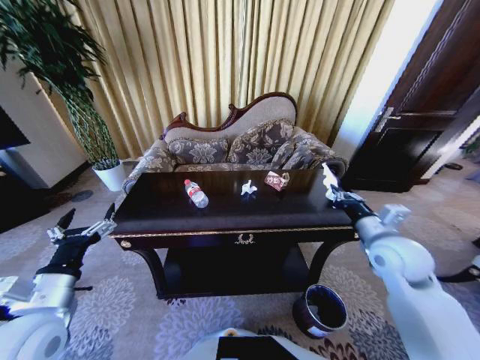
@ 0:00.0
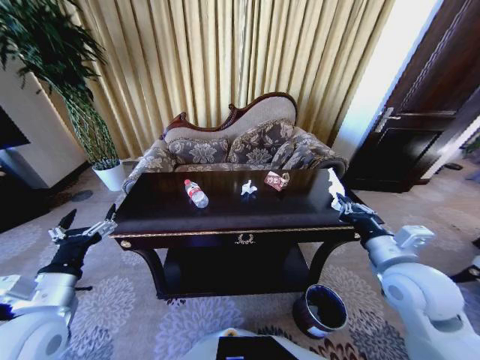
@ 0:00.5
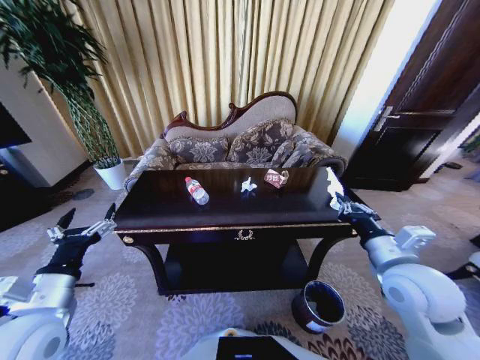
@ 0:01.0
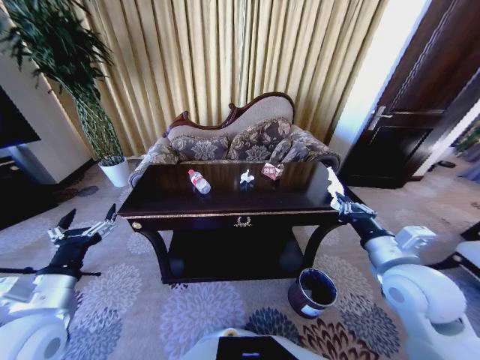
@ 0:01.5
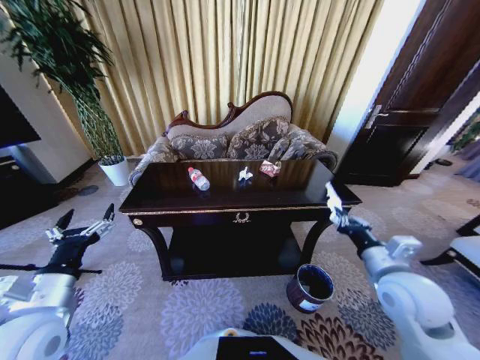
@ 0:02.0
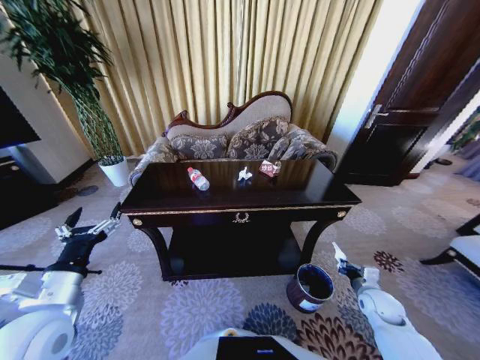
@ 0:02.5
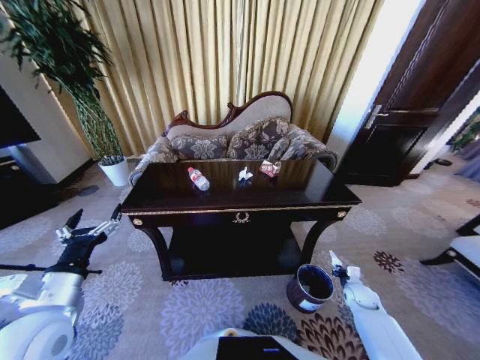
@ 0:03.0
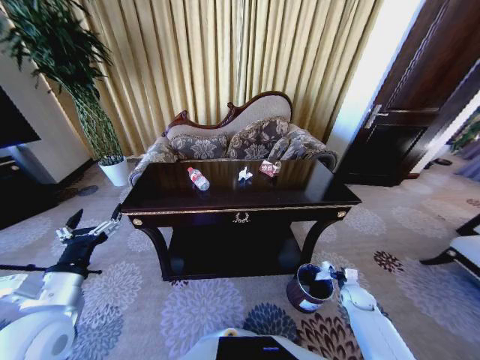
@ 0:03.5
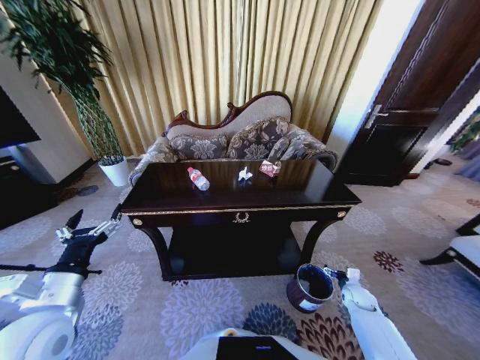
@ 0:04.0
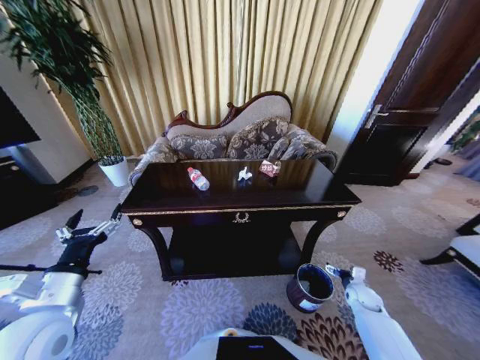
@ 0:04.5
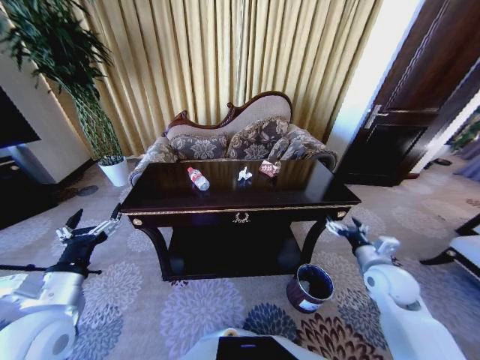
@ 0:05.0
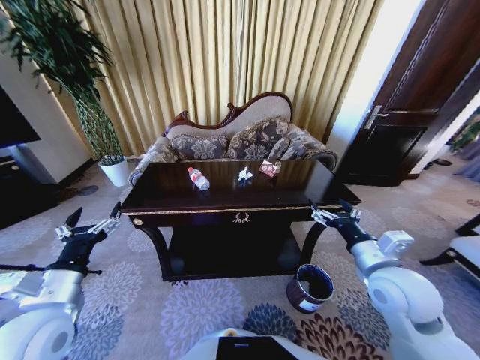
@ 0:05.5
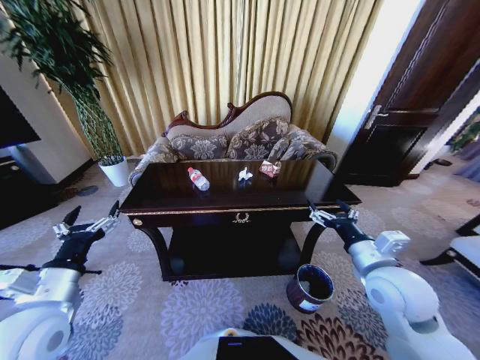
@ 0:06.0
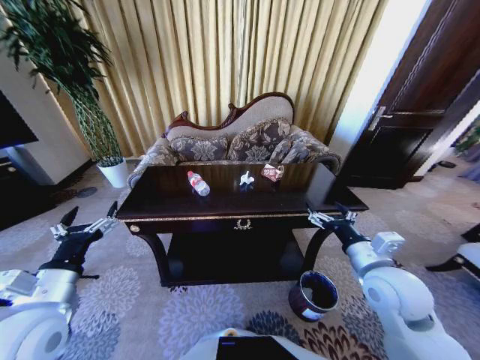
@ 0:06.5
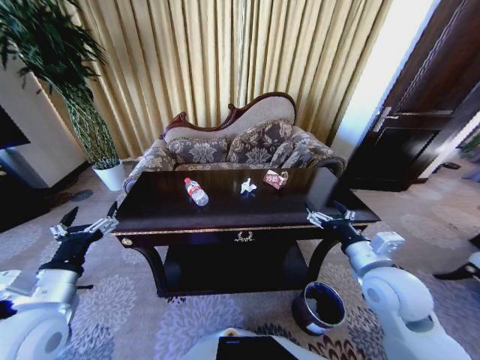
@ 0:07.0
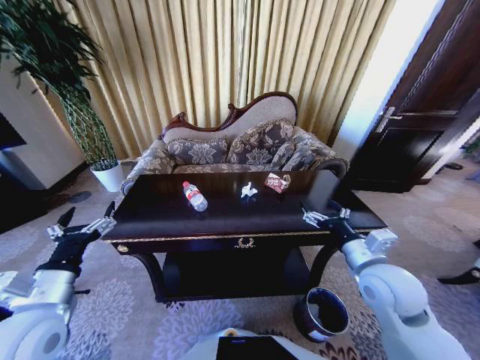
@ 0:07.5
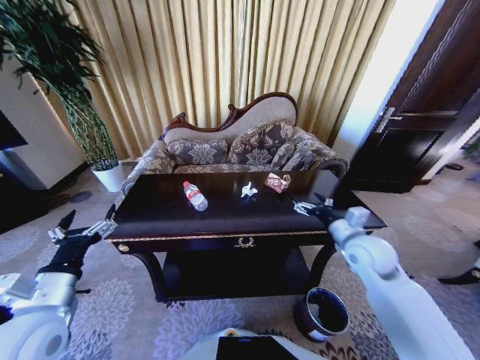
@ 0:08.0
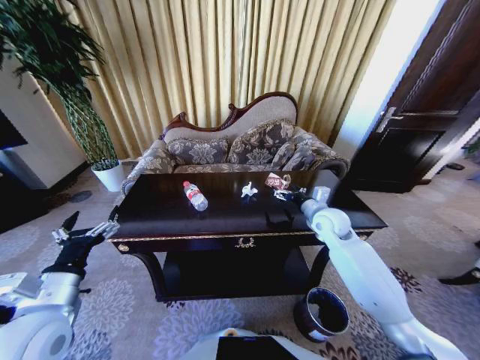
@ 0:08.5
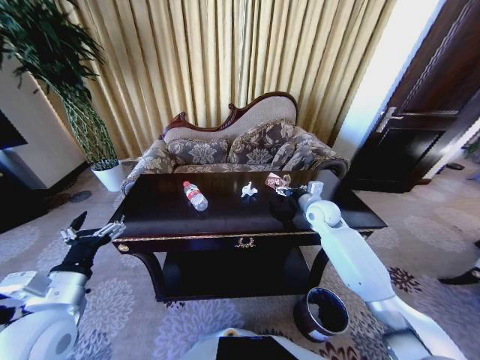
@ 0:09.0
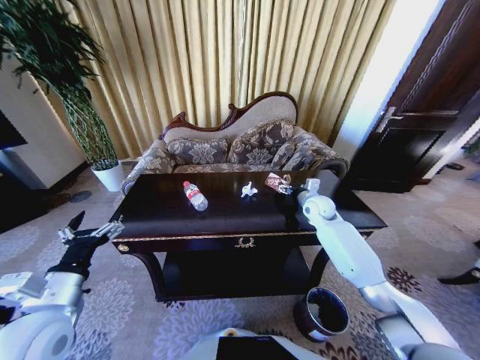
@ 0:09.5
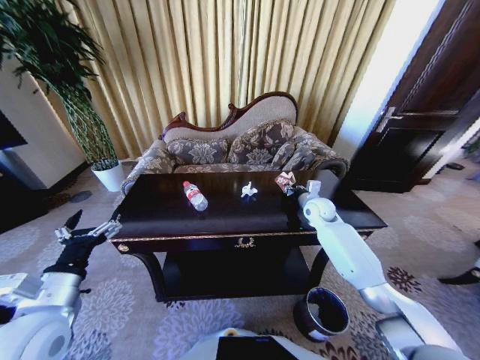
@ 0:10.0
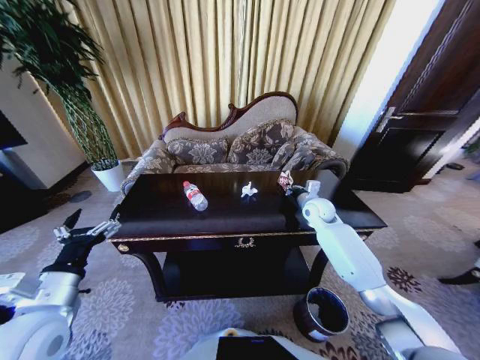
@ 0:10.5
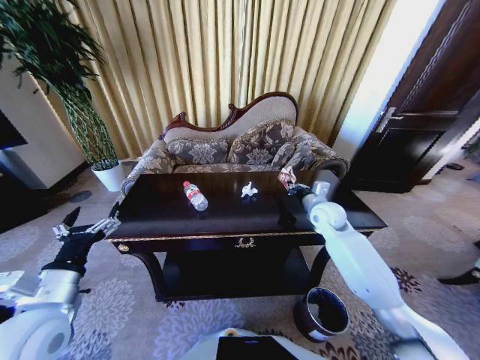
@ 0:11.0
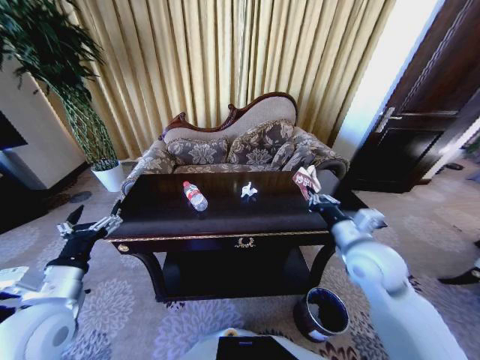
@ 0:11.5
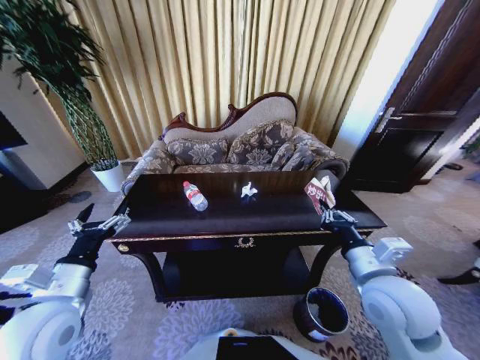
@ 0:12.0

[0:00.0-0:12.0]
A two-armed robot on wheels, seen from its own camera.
Task of the whole recording: Move to the front of the table and place the trash on the table into the trash bin.
0:00.0 to 0:02.0: The right gripper shifts roughly 5 cm backward.
0:02.0 to 0:04.0: The right gripper travels downward by some 30 cm, and opens its fingers.
0:04.0 to 0:06.0: The right gripper is displaced upward and to the left by roughly 35 cm.
0:06.0 to 0:08.0: The right gripper moves forward, approximately 10 cm.
0:08.0 to 0:10.0: The right gripper goes approximately 20 cm forward, and closes up.
0:10.0 to 0:12.0: The right gripper moves backward, about 30 cm, and closes.

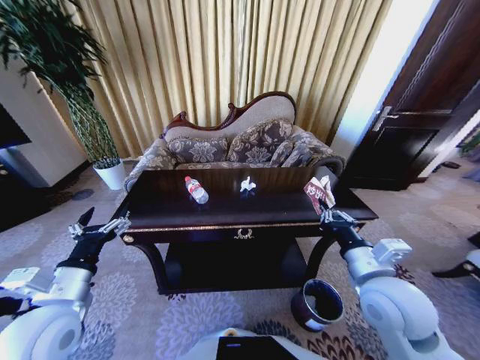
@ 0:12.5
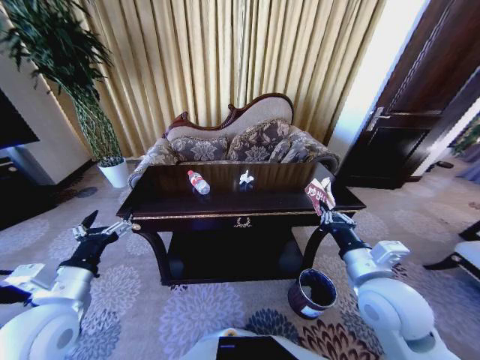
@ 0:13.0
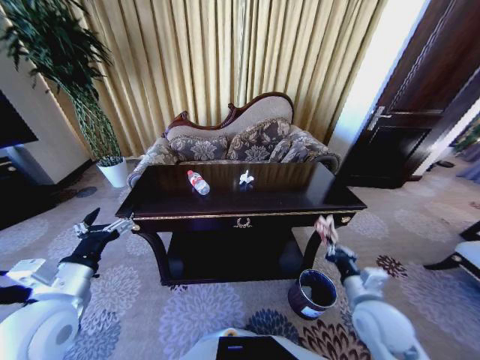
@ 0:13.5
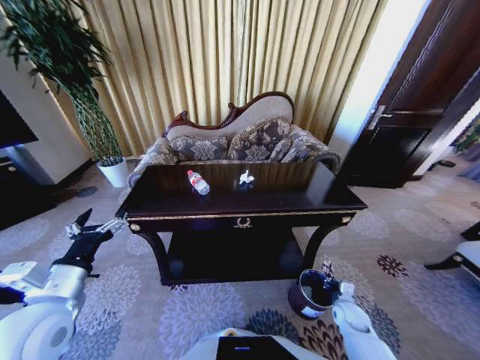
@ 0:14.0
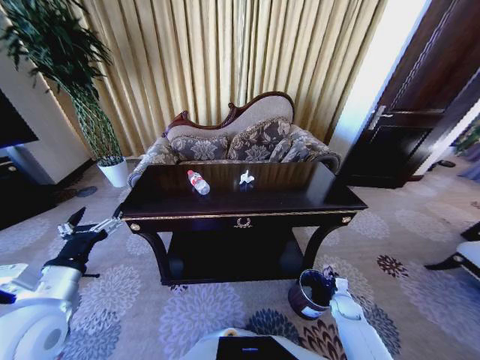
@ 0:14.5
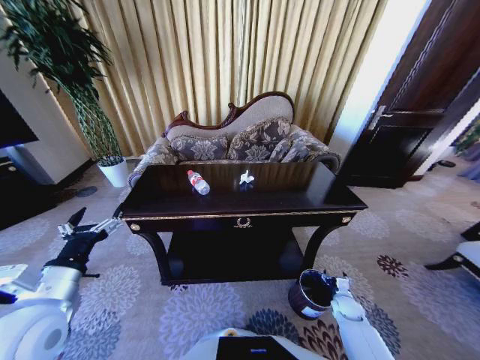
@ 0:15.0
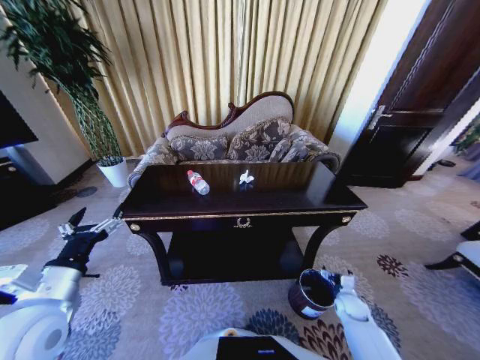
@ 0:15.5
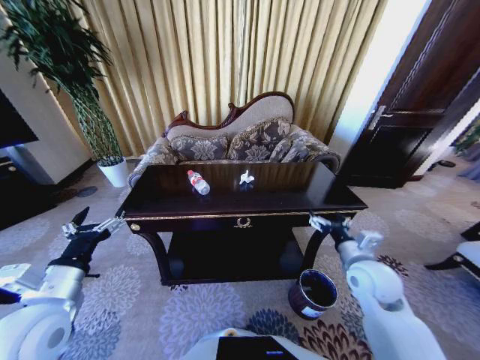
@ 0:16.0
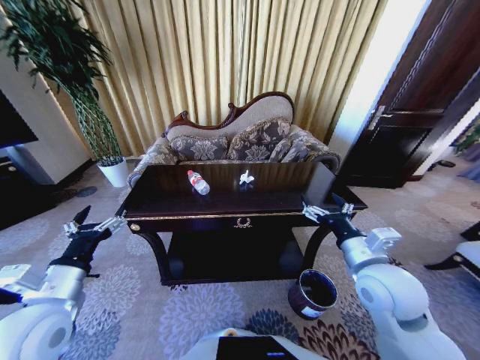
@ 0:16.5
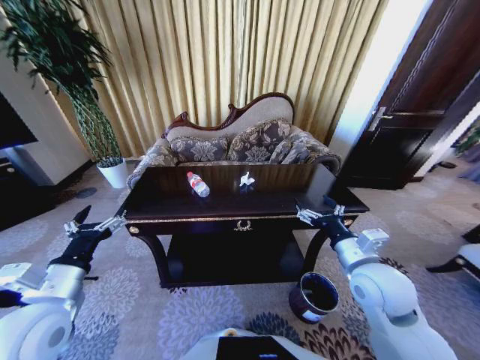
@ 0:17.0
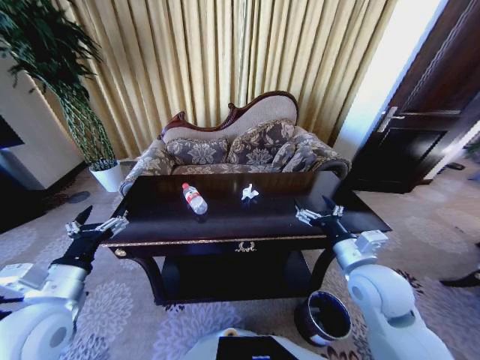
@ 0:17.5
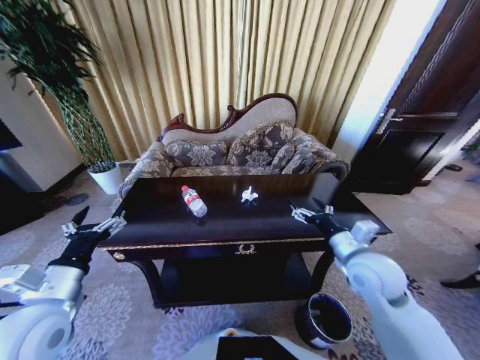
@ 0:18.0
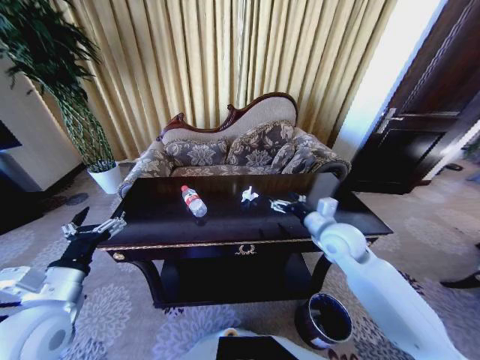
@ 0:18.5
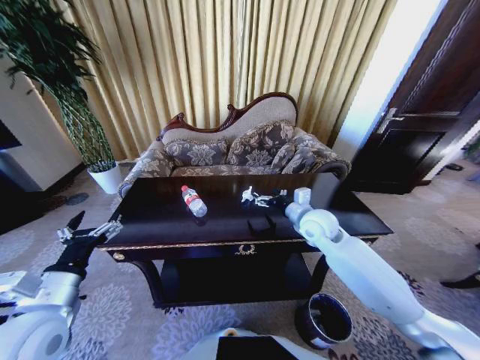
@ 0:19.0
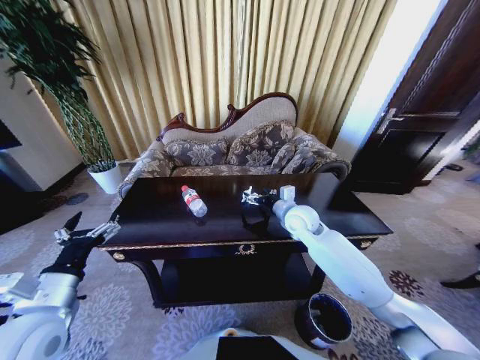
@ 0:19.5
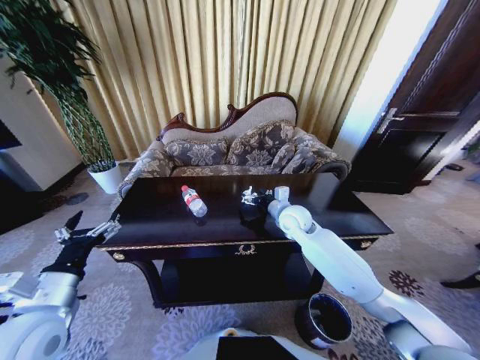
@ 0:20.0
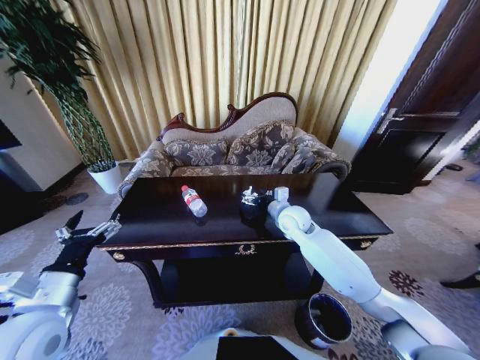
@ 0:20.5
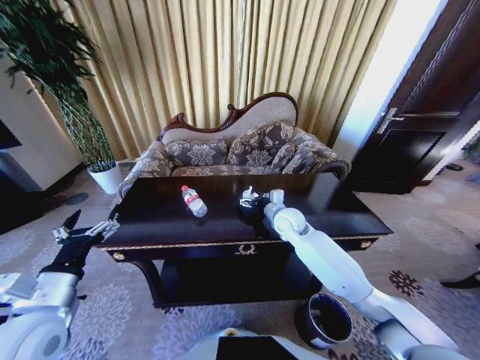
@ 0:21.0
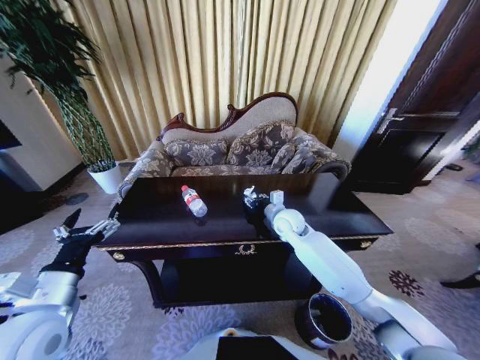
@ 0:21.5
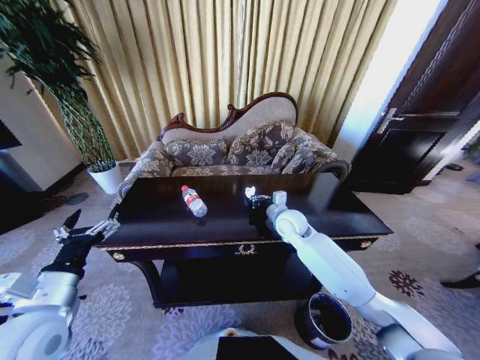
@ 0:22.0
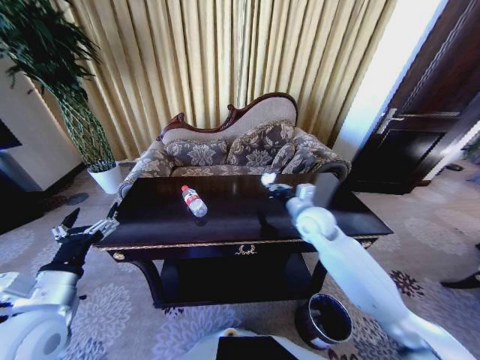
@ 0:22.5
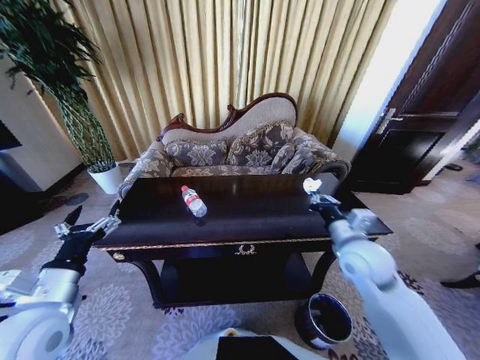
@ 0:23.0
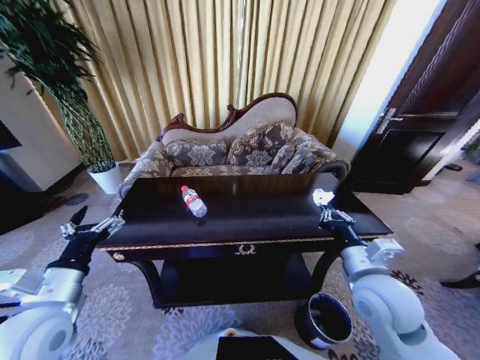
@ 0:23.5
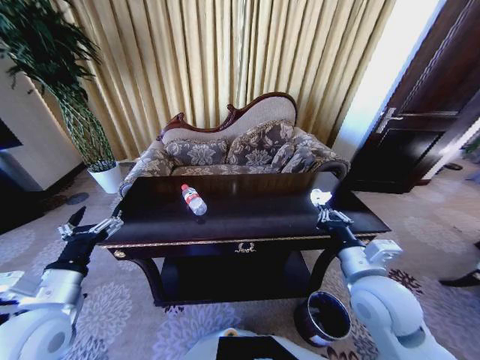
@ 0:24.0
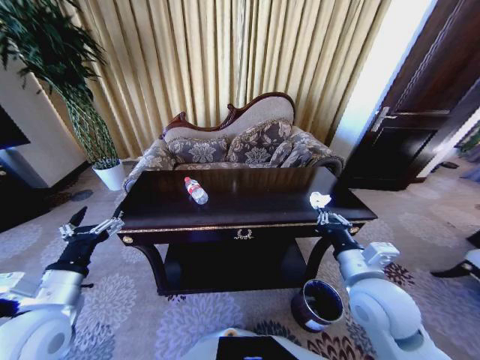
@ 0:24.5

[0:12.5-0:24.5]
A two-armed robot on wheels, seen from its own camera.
Task of the whole recording: Move to the front of the table and place the trash on the table into the trash bin.
0:12.5 to 0:14.5: The right gripper travels downward by some 40 cm.
0:14.5 to 0:16.5: The right gripper moves upward, roughly 40 cm, and opens up.
0:16.5 to 0:18.5: The right gripper travels forward by about 10 cm.
0:18.5 to 0:20.5: The right gripper shifts about 15 cm forward and to the left.
0:20.5 to 0:22.5: The right gripper changes place by roughly 5 cm, and closes its fingers.
0:22.5 to 0:24.5: The right gripper heads backward, covering roughly 20 cm.

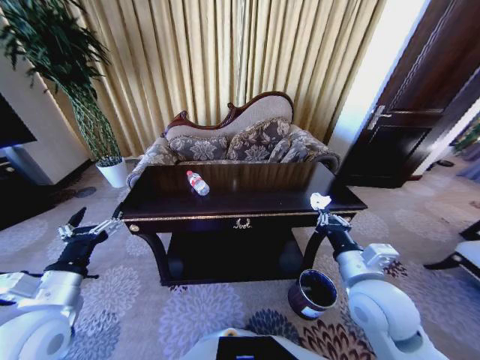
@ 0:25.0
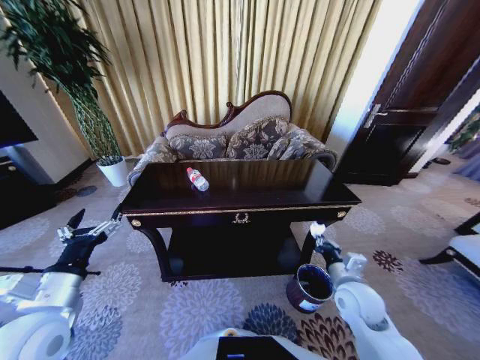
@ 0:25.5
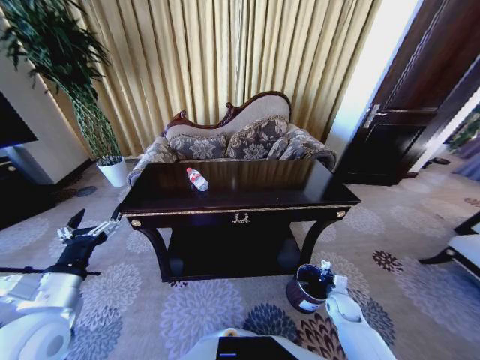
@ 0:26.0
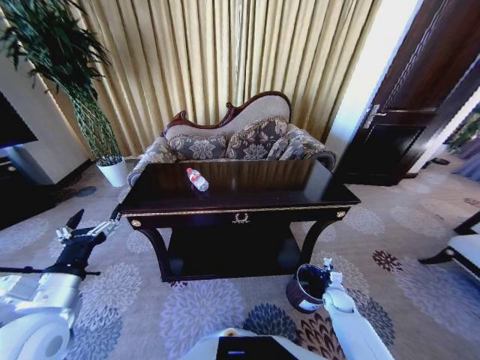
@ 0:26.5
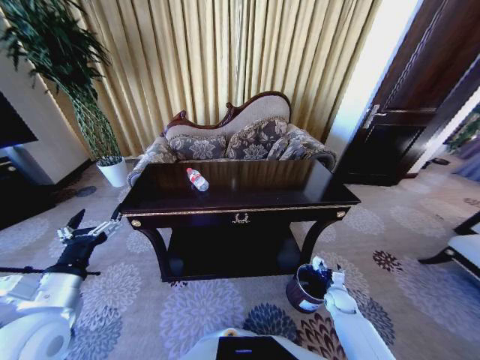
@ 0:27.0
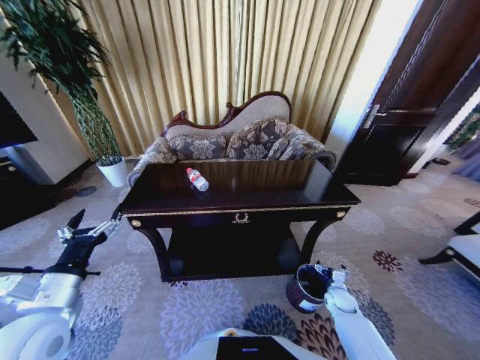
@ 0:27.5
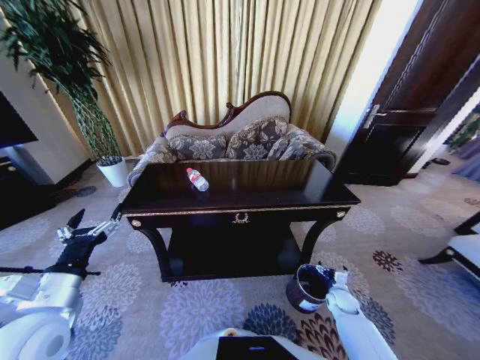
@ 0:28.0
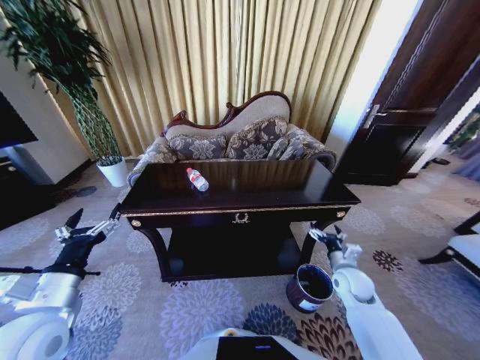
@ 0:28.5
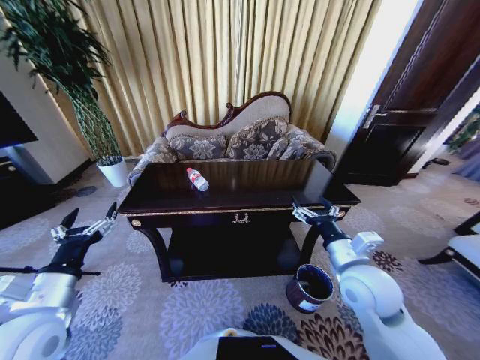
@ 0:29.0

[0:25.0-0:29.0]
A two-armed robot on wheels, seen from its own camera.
Task of the whole recording: Move to the front of the table and place the trash on the table into the trash bin.
0:25.0 to 0:27.0: The right gripper goes some 35 cm downward and to the right, and opens up.
0:27.0 to 0:29.0: The right gripper shifts approximately 35 cm upward and to the left, and opens.
